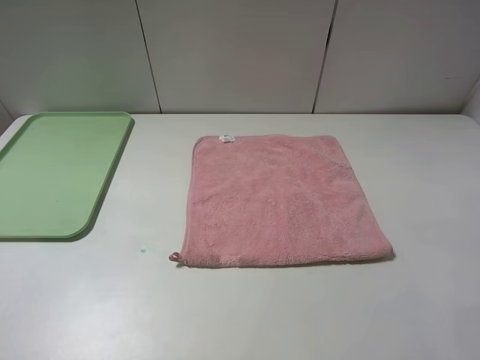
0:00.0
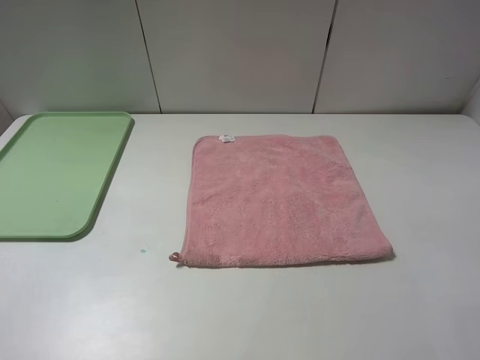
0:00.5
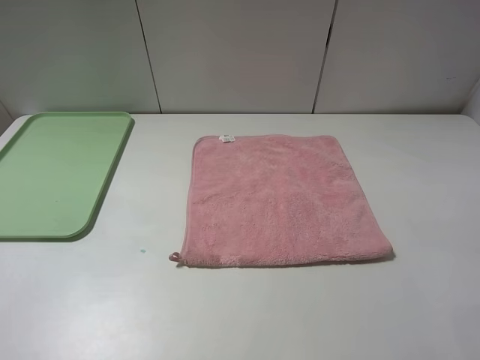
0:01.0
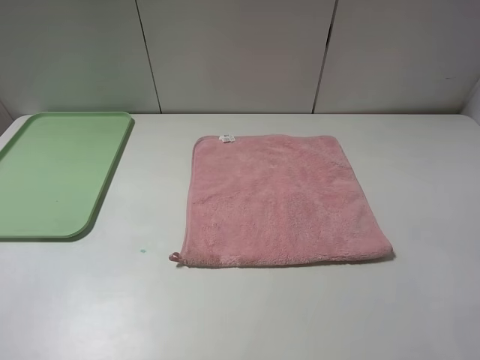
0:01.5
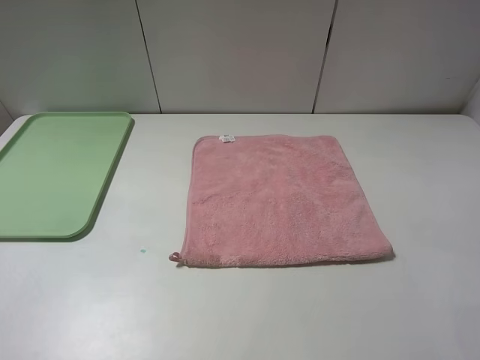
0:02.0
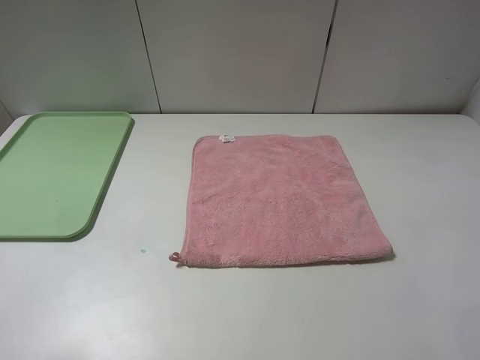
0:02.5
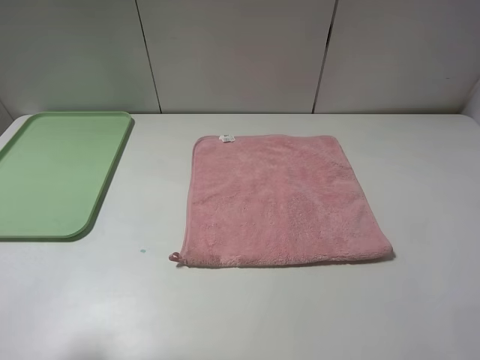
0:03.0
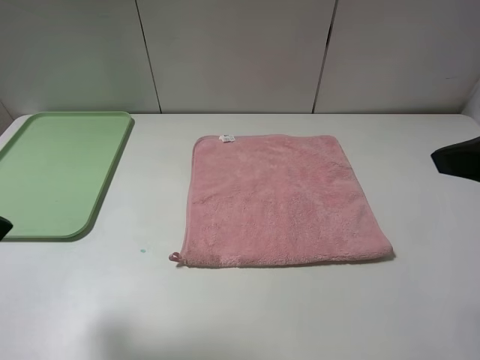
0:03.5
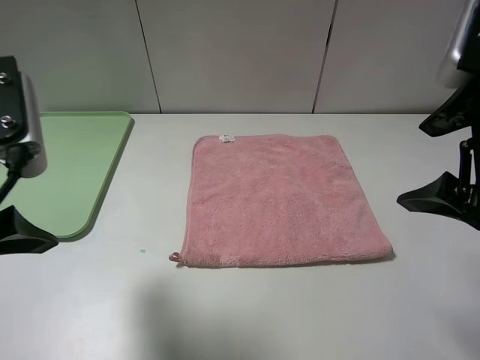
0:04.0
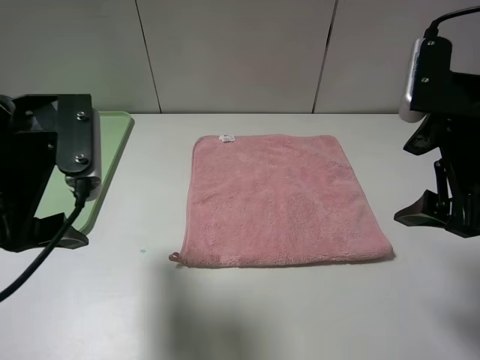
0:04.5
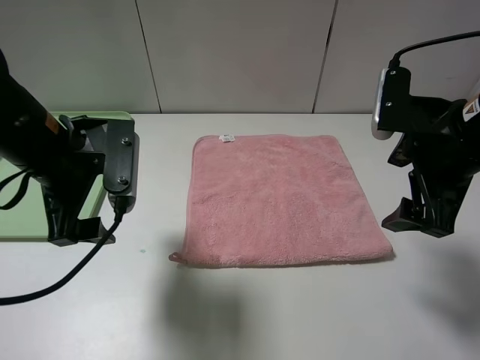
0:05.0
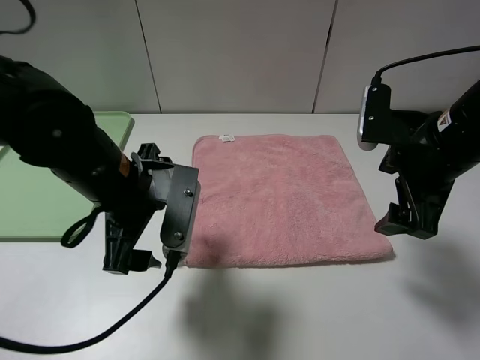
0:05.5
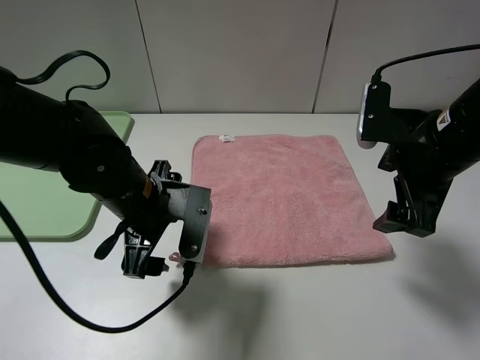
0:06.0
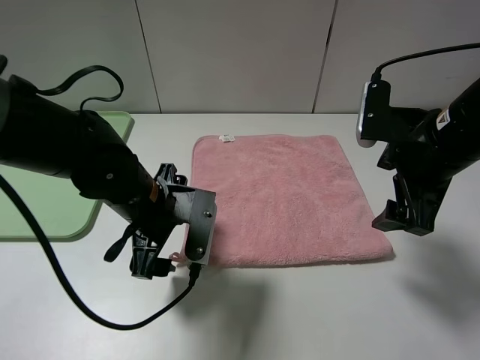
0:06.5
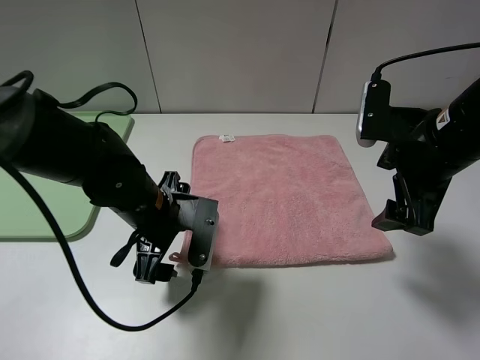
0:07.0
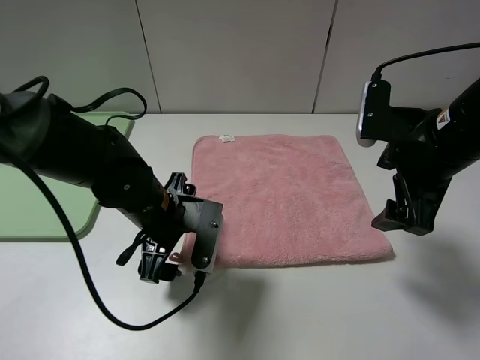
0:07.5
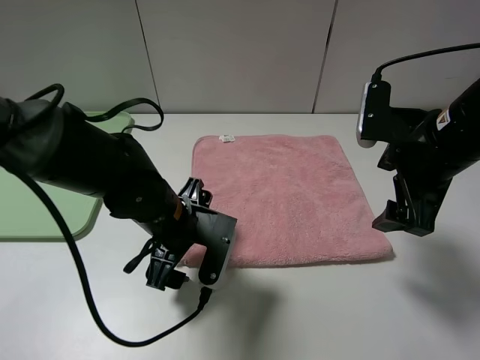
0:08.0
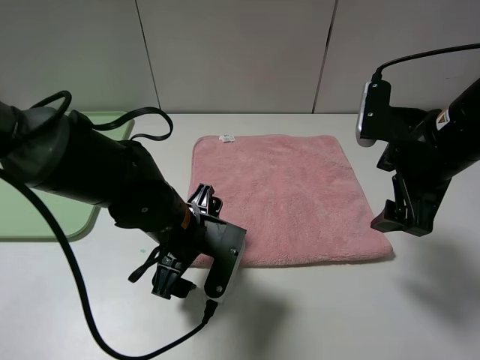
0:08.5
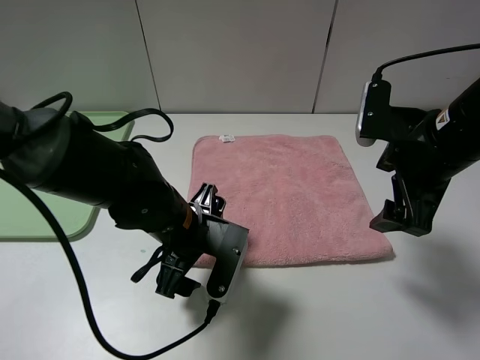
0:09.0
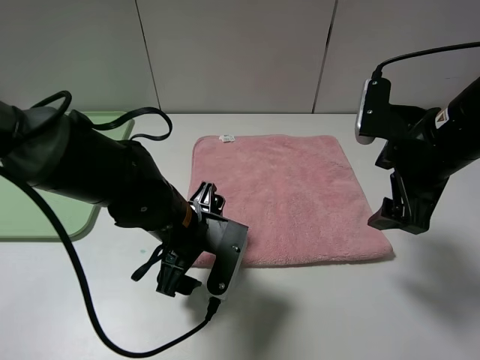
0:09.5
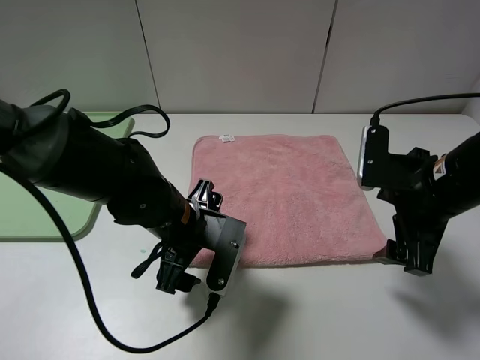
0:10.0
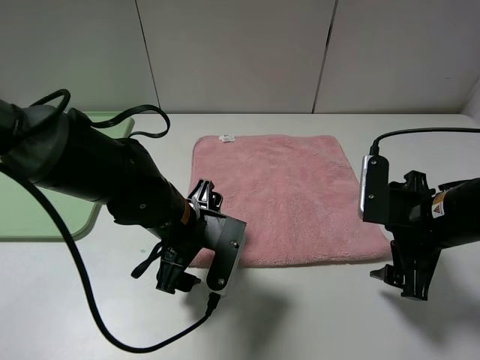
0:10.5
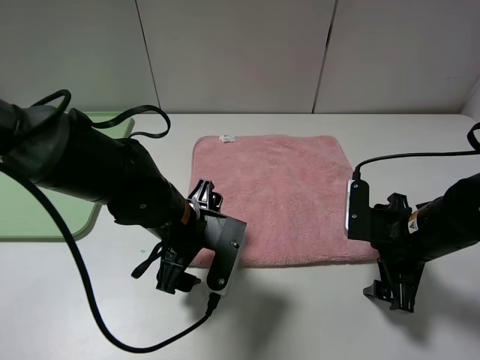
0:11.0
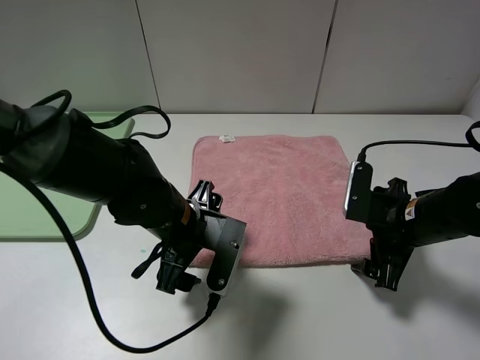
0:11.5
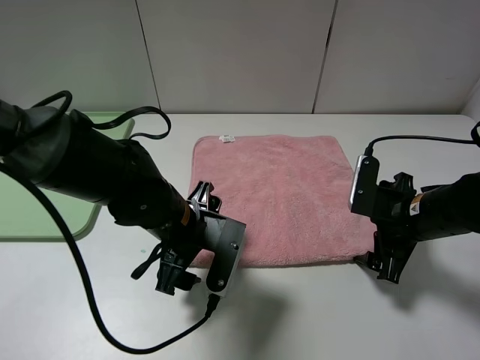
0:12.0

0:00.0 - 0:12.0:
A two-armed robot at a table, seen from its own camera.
0:00.0 - 0:02.0: Both grippers stay about where they are.
0:02.0 - 0:04.0: The left gripper goes about 20 cm forward and to the right. The right gripper moves forward, approximately 15 cm.
0:04.0 - 0:06.0: The right gripper shifts about 10 cm downward and forward, while the left gripper travels downward, to the right and forward by approximately 20 cm.
0:06.0 - 0:08.0: The left gripper shifts by some 5 cm.
0:08.0 - 0:10.0: The right gripper shifts by approximately 5 cm.
0:10.0 - 0:12.0: The right gripper goes some 10 cm downward.

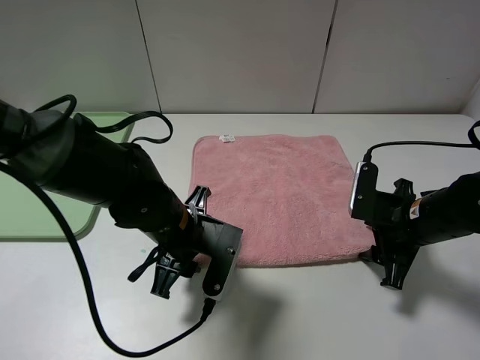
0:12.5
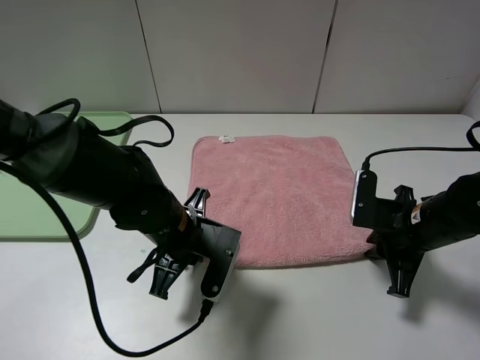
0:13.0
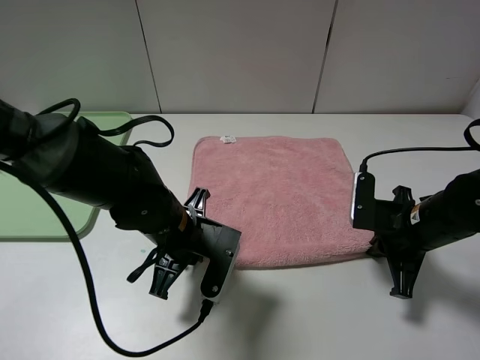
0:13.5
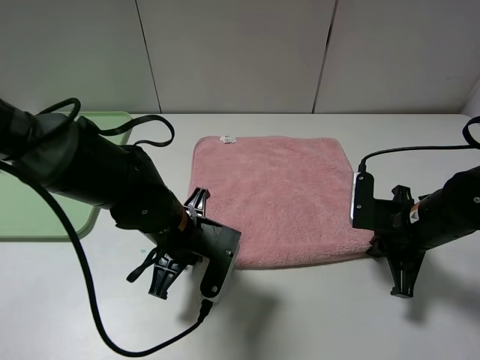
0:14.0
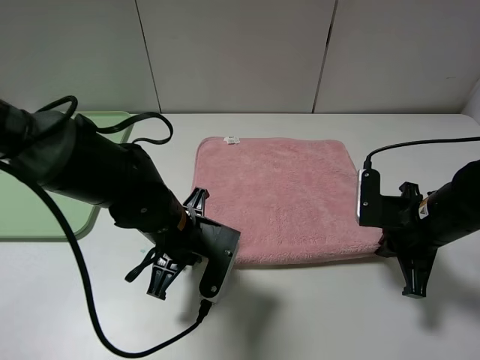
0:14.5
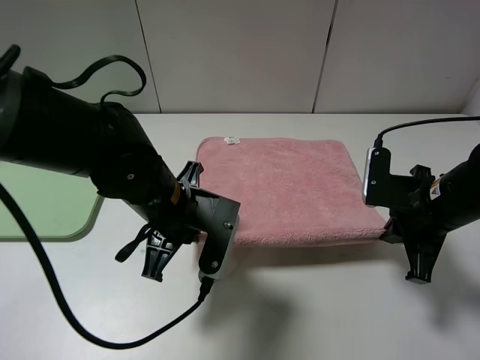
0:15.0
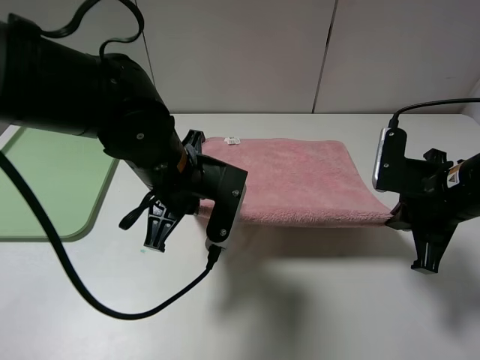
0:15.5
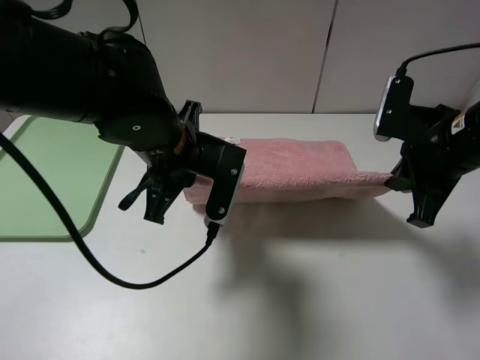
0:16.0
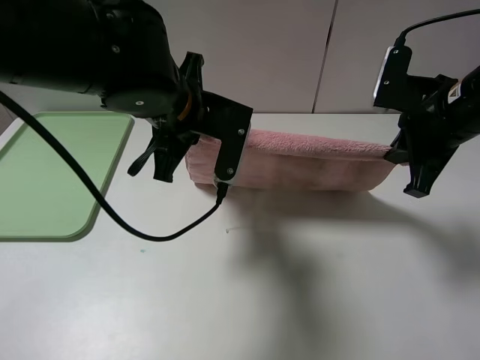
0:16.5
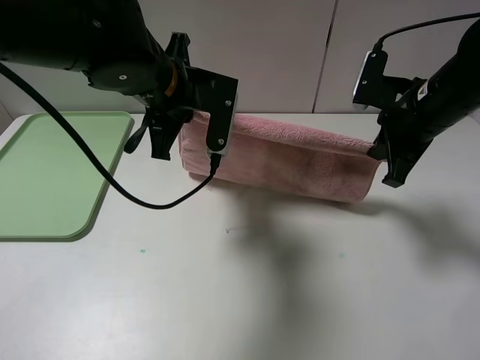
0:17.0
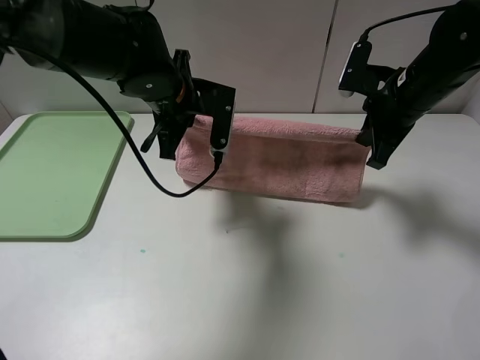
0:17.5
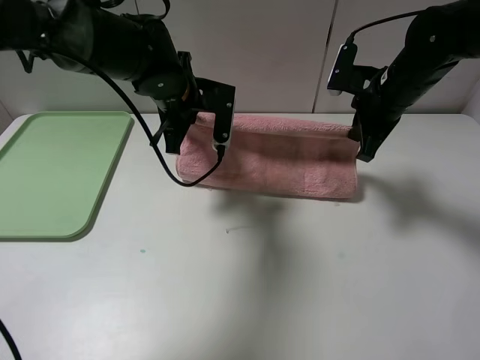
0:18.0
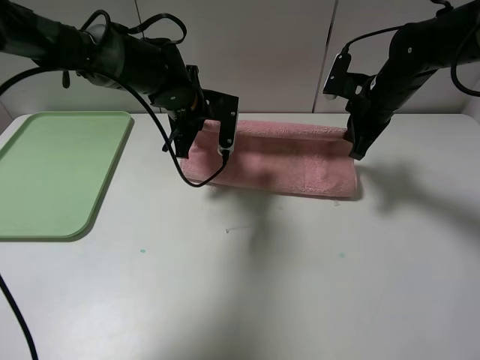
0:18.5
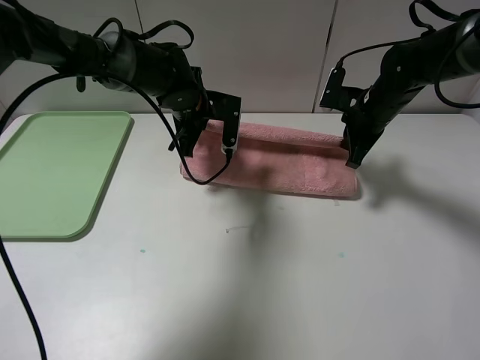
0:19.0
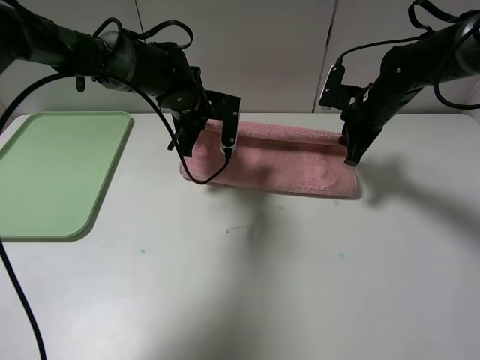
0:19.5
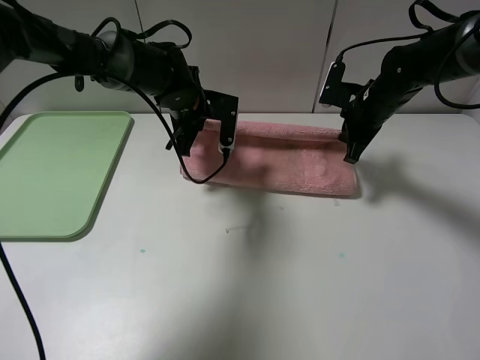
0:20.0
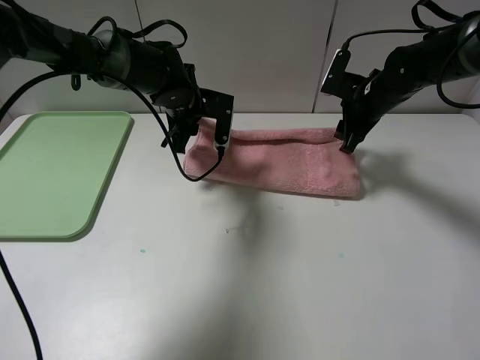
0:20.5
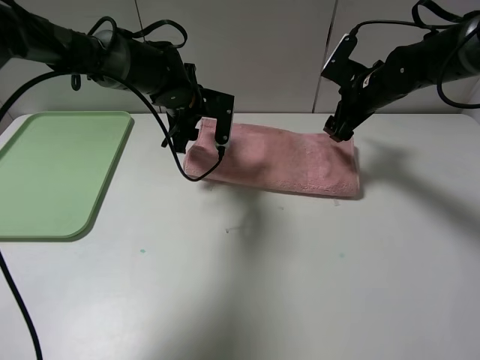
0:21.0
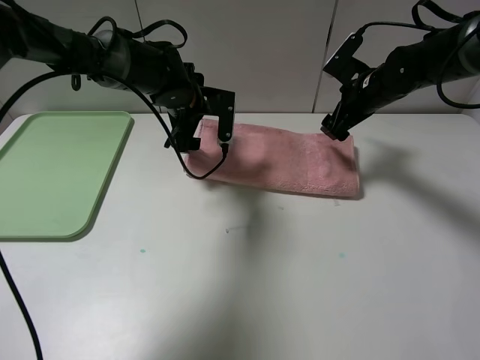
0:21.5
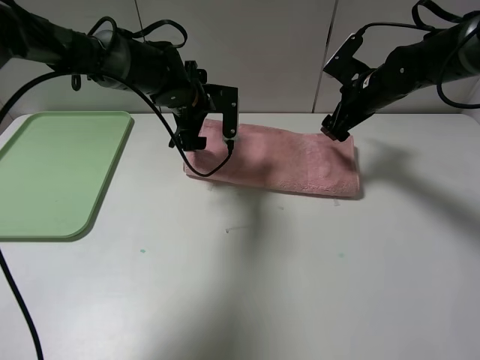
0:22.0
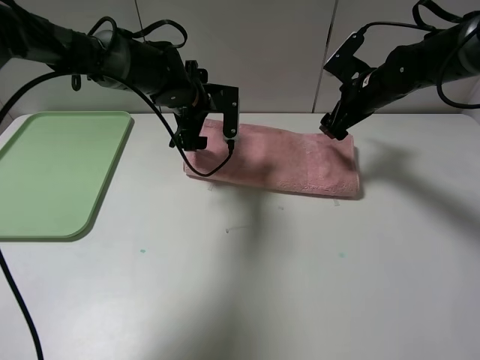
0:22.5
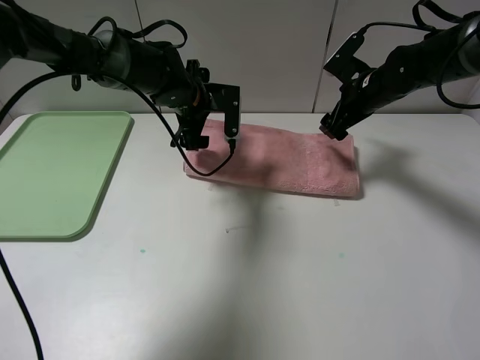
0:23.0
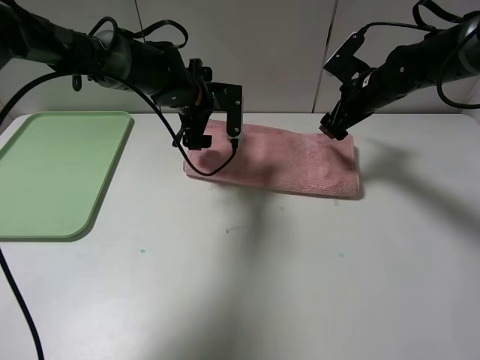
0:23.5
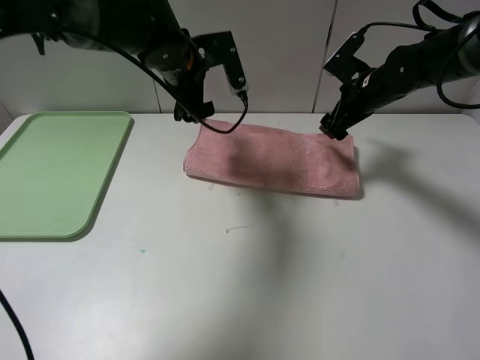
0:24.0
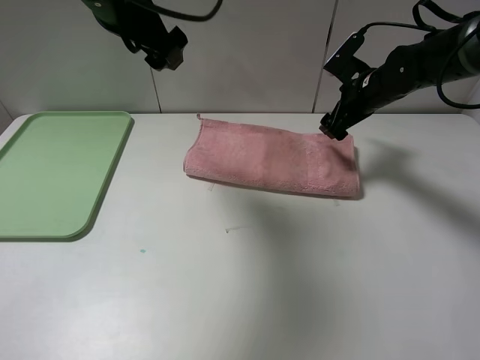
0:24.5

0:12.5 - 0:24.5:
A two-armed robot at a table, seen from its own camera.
Step, 0:12.5 - 0:20.5: Fold the pink towel upwards.
0:12.5 - 0:14.5: The left gripper closes its fingers. The right gripper closes its fingers.
0:14.5 - 0:16.5: Both grippers travel together upward and forward, about 15 cm.
0:16.5 - 0:18.5: Both grippers move forward and downward, some 15 cm.
0:18.5 - 0:20.5: The left gripper opens its fingers; the right gripper opens its fingers.
0:20.5 - 0:22.5: The right gripper opens up, while the left gripper opens its fingers.
0:22.5 - 0:24.5: The left gripper heads upward and backward, covering roughly 20 cm.

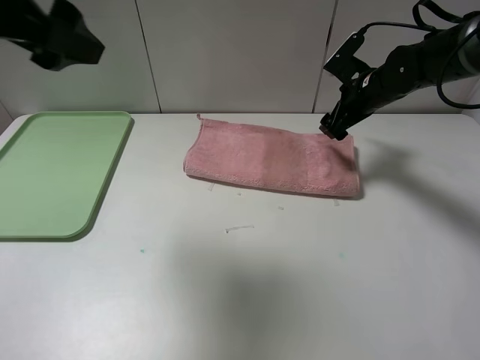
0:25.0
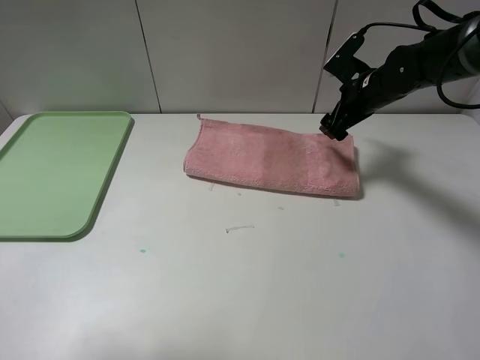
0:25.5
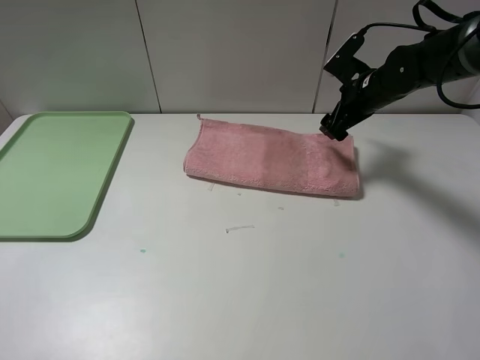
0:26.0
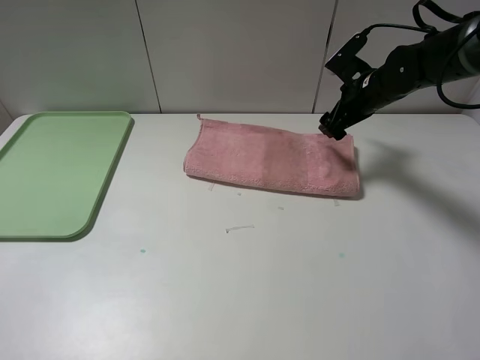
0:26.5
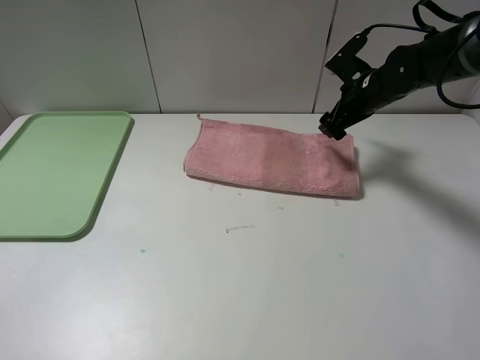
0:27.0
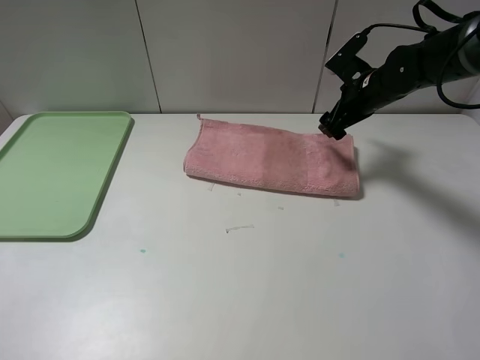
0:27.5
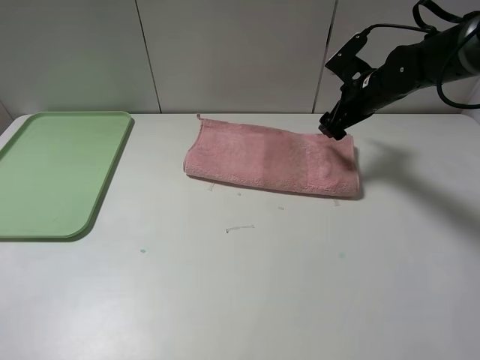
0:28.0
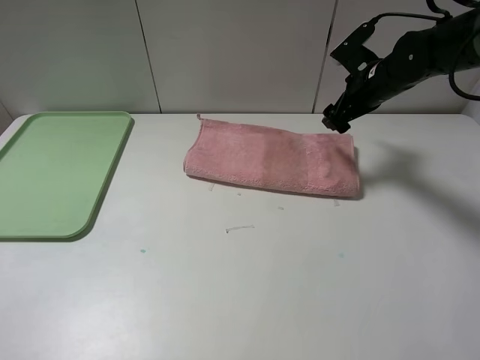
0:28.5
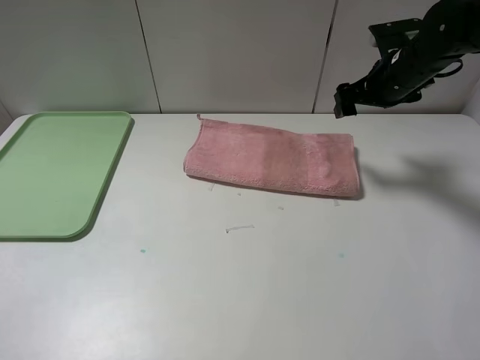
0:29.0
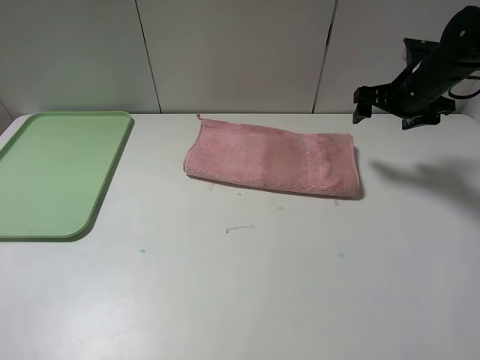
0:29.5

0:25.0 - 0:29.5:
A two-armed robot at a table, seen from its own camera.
0:25.0 - 0:27.0: The left gripper heads backward, to the left and downward, covering approximately 25 cm.
0:27.0 - 0:29.5: The right gripper is displaced to the right by about 5 cm.
